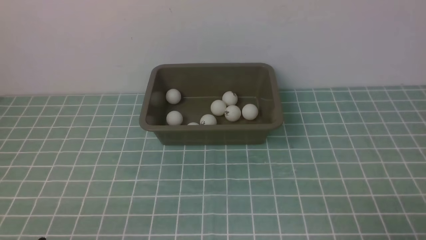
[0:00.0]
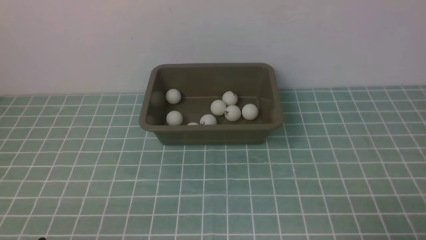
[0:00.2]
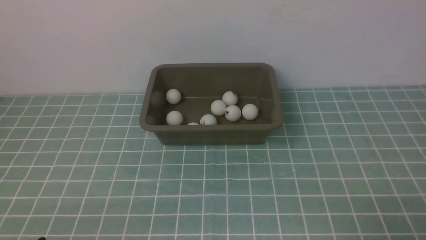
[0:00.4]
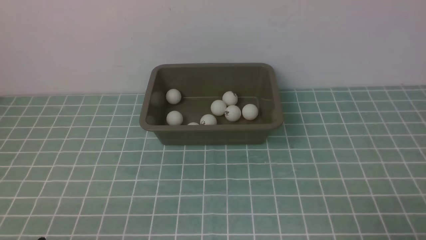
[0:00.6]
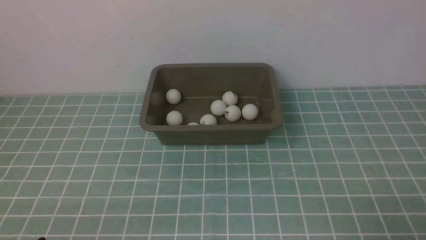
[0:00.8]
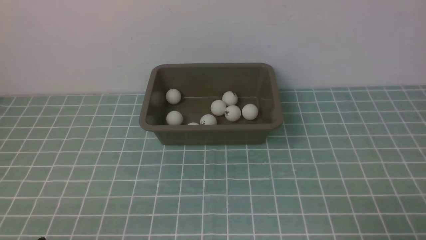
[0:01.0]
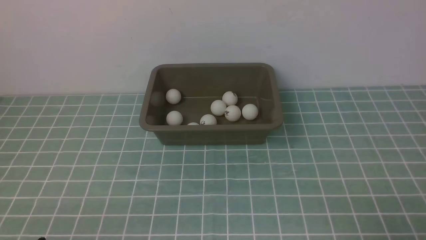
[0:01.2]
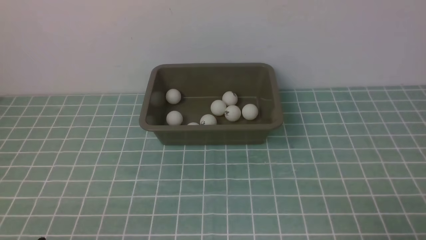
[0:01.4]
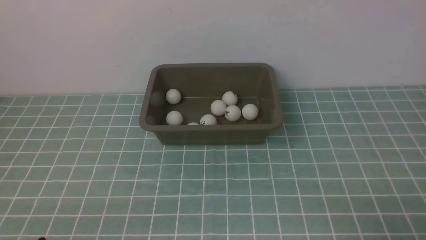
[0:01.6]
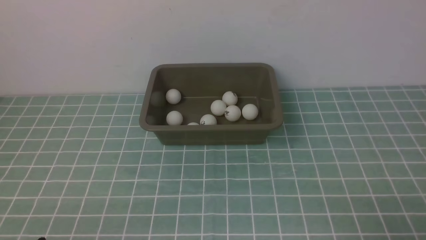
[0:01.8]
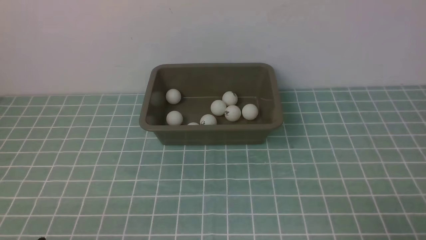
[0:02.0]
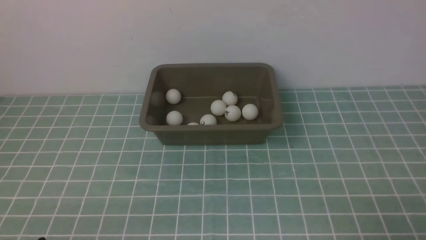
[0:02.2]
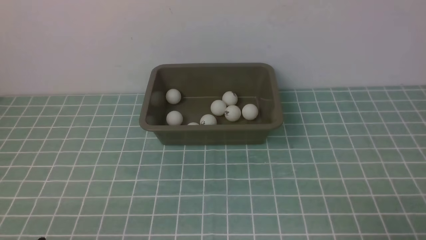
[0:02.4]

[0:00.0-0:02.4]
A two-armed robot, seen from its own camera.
0:00.0 to 0:02.4: The two grippers keep their place.
